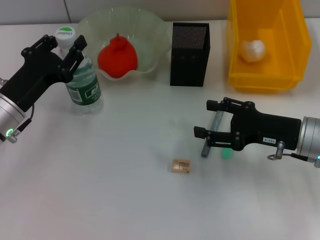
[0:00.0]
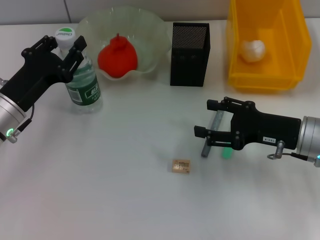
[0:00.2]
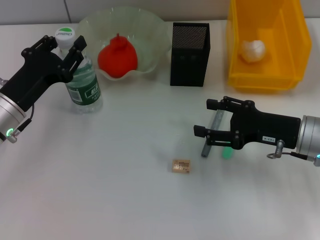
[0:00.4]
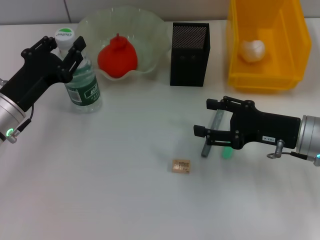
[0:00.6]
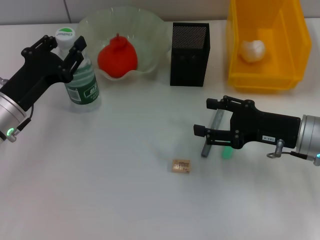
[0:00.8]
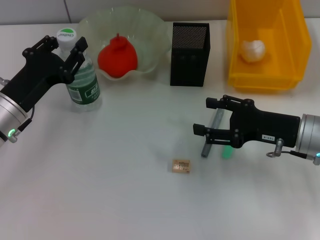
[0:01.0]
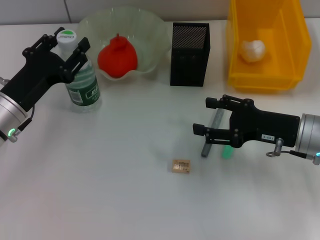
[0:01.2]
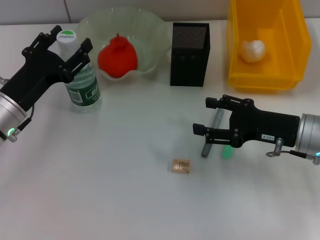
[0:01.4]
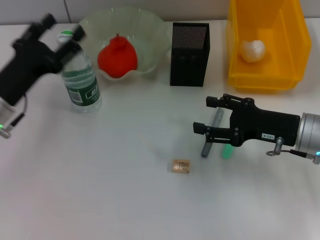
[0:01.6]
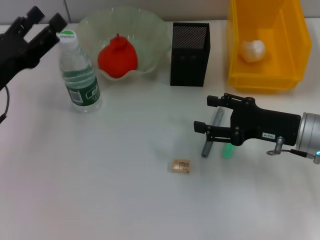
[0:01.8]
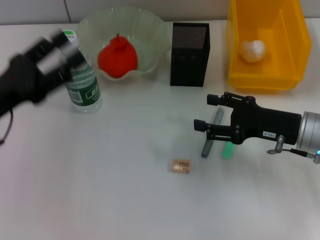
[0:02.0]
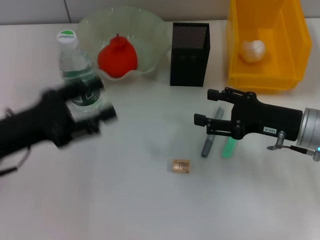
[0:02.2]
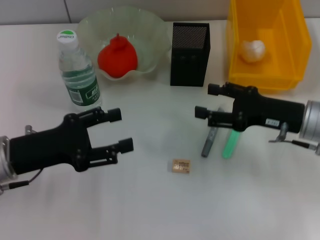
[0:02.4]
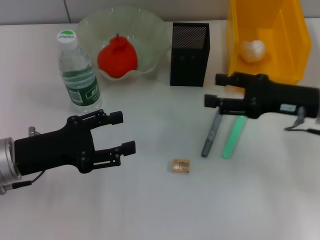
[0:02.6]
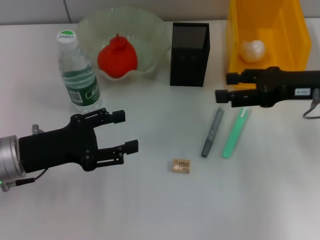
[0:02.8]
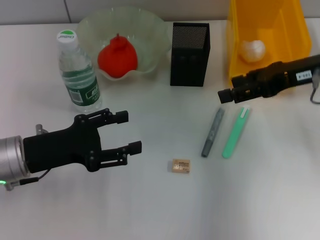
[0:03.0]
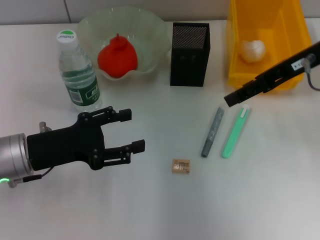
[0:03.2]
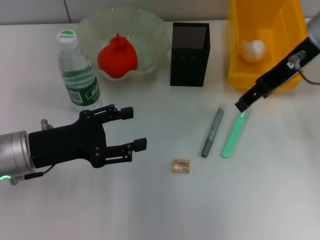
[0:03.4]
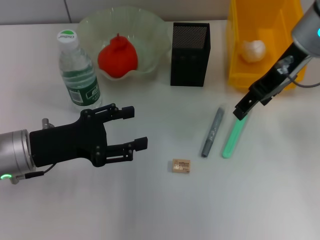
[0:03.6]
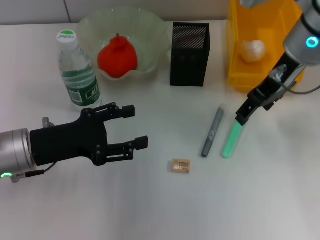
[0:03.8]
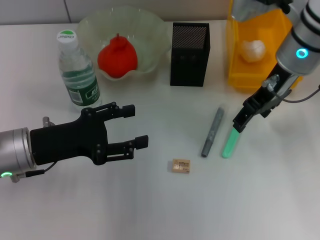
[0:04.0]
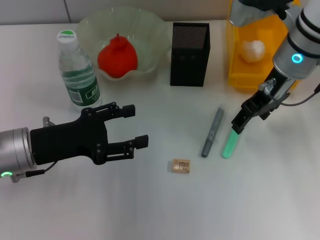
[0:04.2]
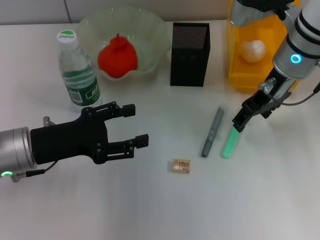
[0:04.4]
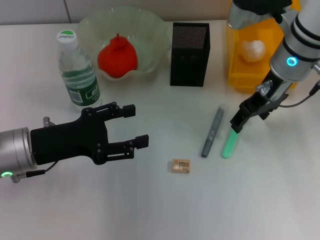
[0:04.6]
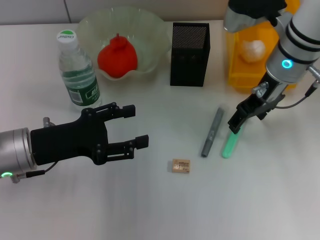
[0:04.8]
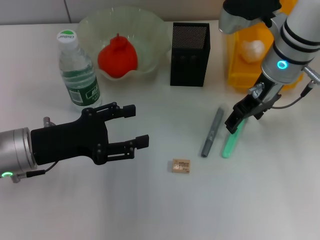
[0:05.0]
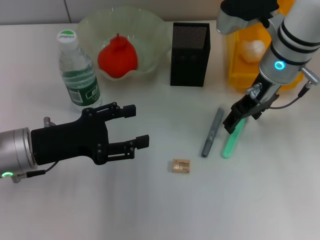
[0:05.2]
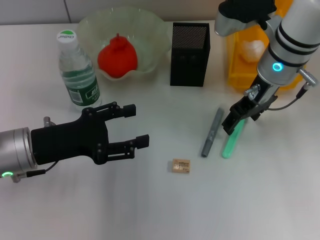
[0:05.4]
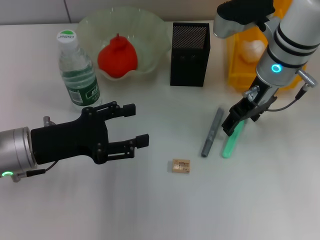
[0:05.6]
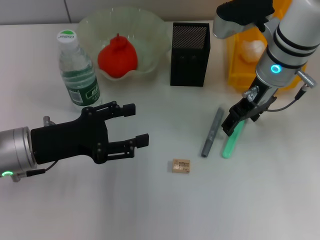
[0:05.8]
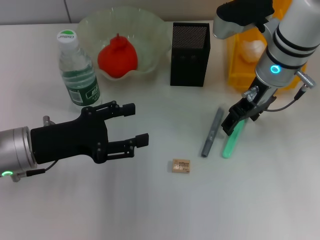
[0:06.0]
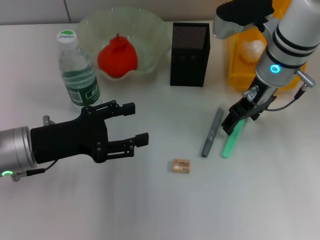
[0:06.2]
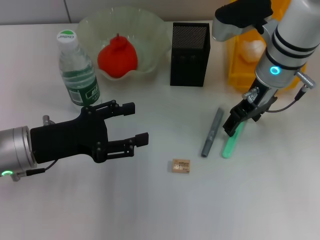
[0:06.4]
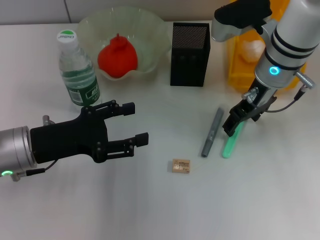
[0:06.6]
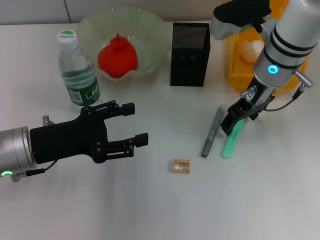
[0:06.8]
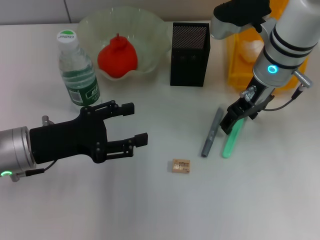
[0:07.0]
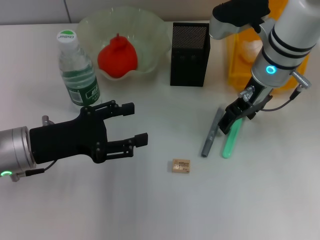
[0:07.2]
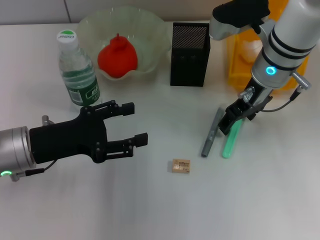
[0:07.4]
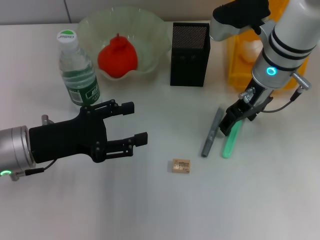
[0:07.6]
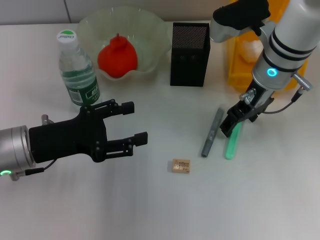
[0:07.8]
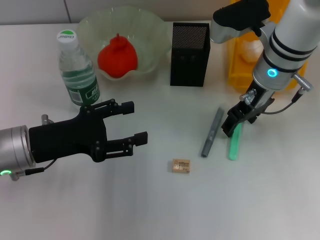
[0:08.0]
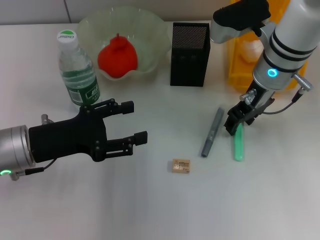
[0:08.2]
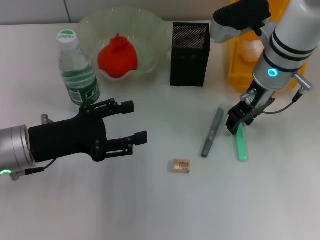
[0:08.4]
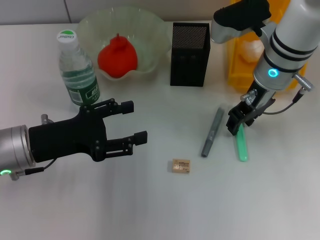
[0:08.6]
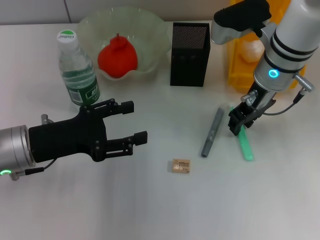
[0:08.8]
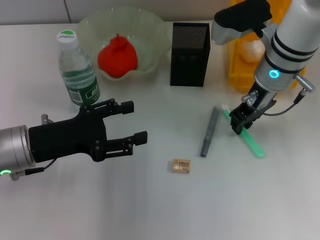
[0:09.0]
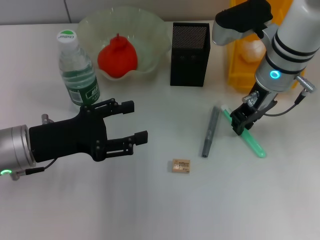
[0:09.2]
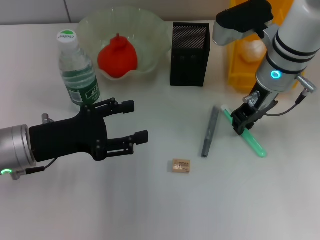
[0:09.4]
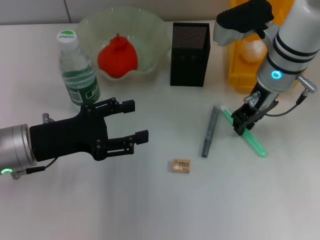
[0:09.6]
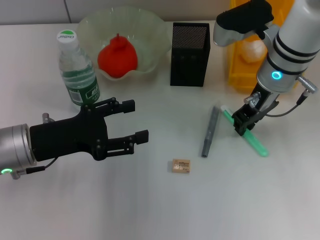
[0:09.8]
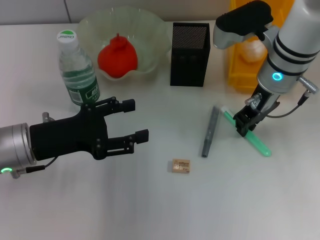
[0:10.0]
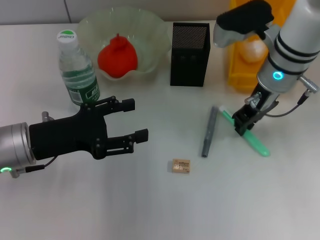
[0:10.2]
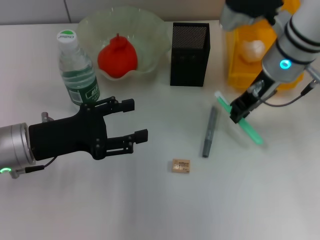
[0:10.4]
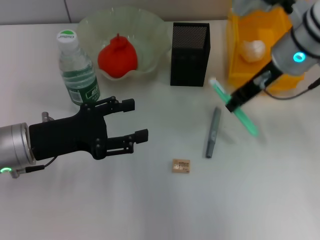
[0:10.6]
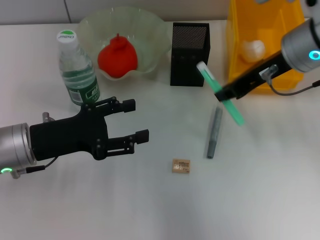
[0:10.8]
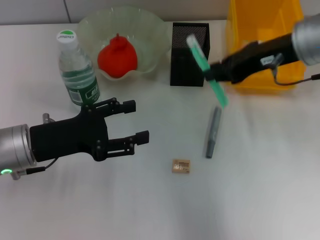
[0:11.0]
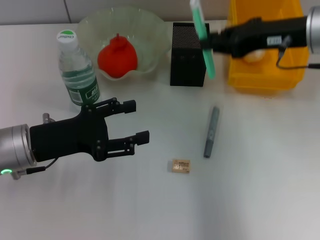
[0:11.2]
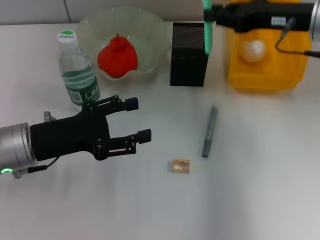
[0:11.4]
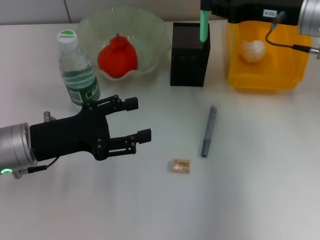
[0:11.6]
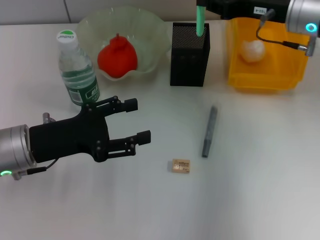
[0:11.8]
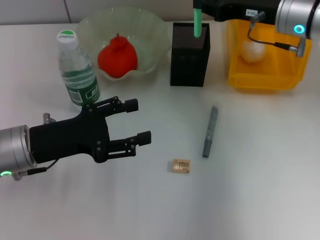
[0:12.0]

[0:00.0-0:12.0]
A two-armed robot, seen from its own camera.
Step, 0:01.4 to 0:10.0: Grab the blue utility knife with the right hand.
0:00.0 to 0:01.6: The left gripper opens up.
0:01.6 to 0:03.0: The right gripper goes about 15 cm upward.
0:03.0 to 0:04.4: The right gripper goes some 10 cm to the left and forward.
0:04.4 to 0:06.0: There are only small adjustments of the grippers.
0:06.0 to 0:07.6: Neither gripper changes place.
0:07.6 to 0:09.0: The right gripper closes its fingers.
0:09.0 to 0:10.4: The grippers move only a little.

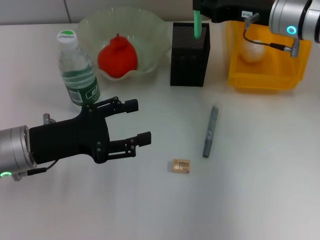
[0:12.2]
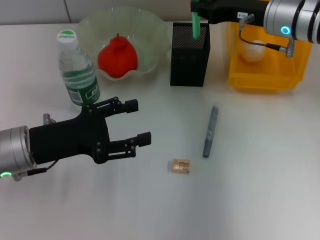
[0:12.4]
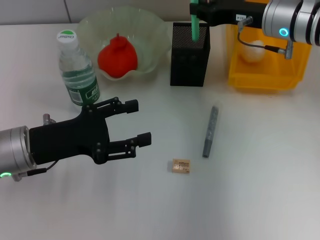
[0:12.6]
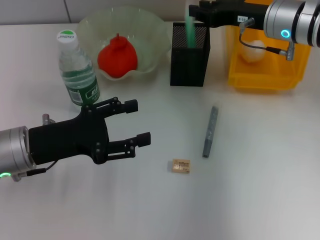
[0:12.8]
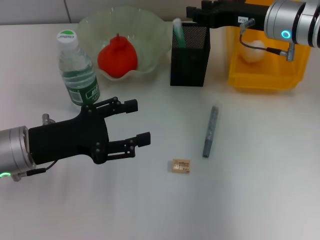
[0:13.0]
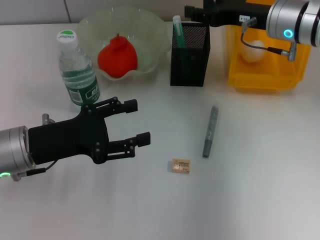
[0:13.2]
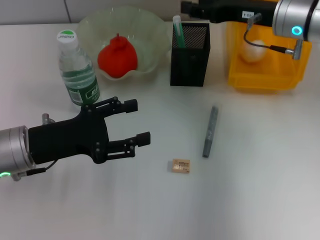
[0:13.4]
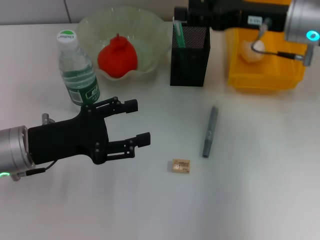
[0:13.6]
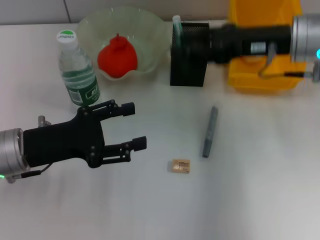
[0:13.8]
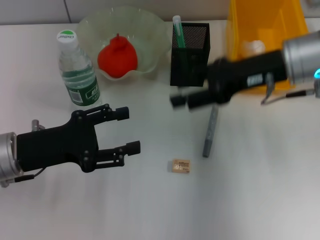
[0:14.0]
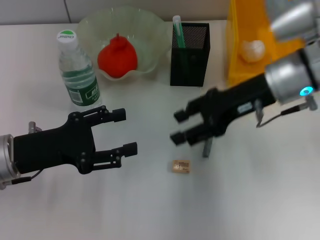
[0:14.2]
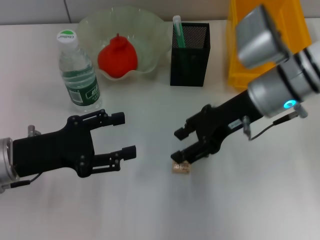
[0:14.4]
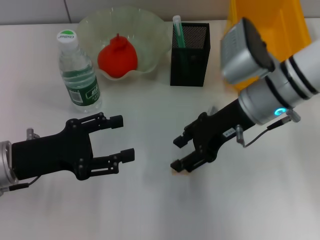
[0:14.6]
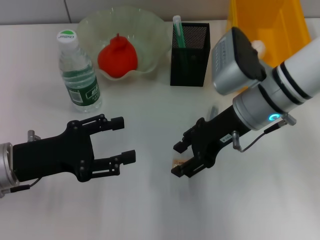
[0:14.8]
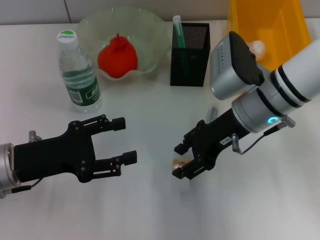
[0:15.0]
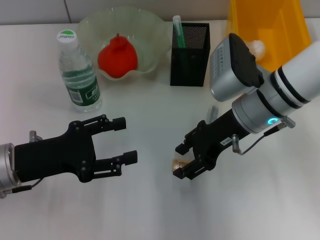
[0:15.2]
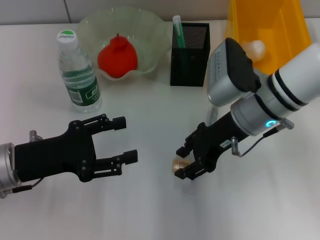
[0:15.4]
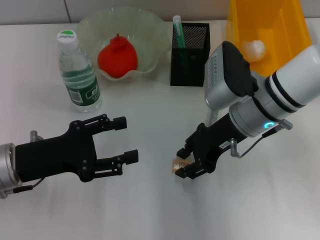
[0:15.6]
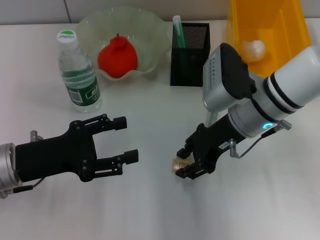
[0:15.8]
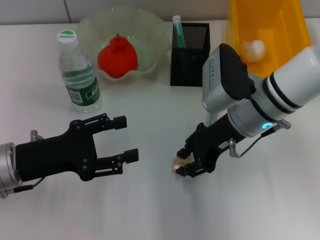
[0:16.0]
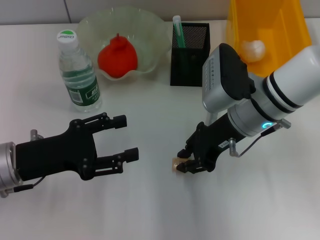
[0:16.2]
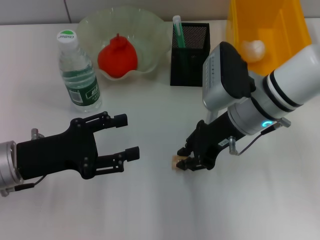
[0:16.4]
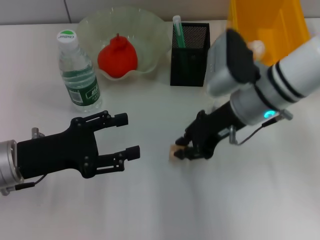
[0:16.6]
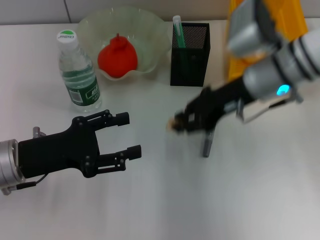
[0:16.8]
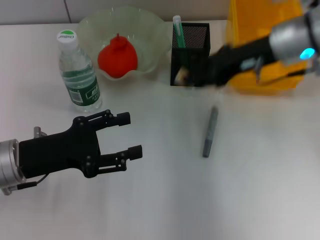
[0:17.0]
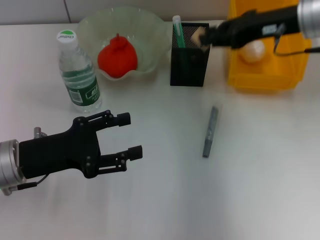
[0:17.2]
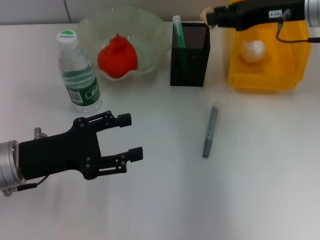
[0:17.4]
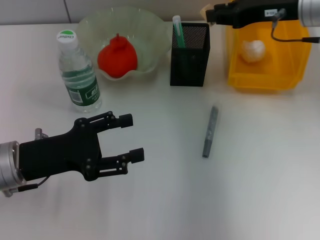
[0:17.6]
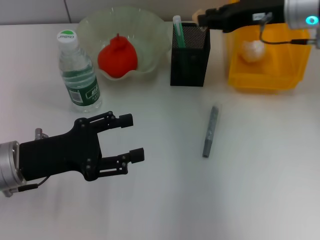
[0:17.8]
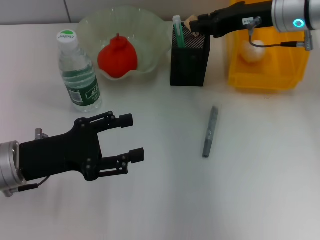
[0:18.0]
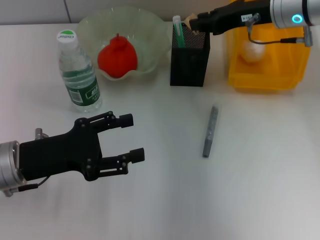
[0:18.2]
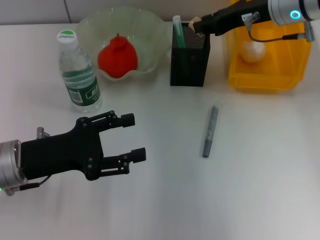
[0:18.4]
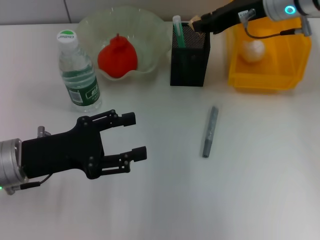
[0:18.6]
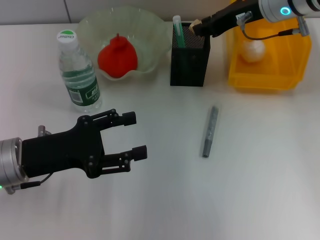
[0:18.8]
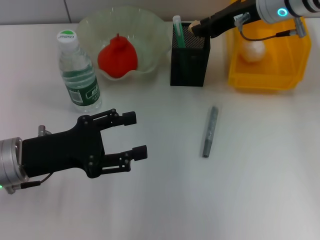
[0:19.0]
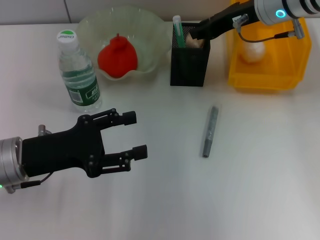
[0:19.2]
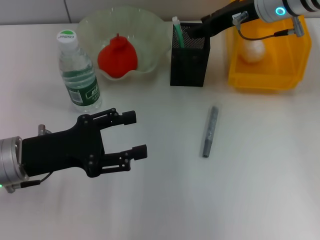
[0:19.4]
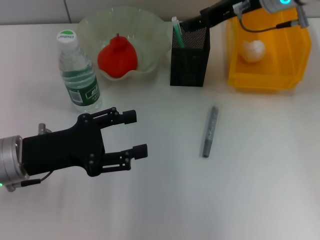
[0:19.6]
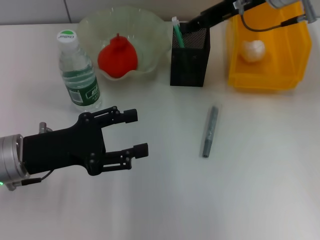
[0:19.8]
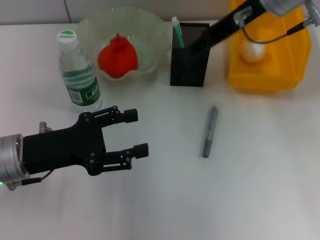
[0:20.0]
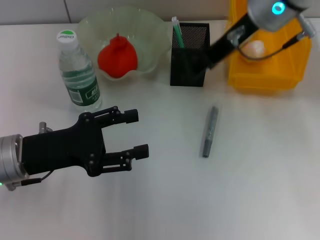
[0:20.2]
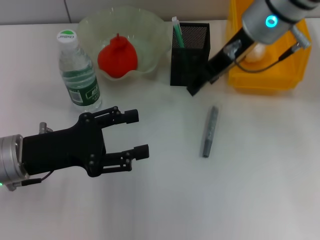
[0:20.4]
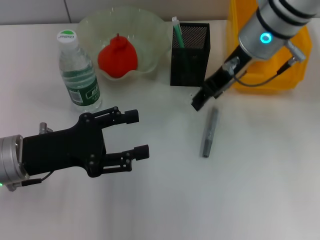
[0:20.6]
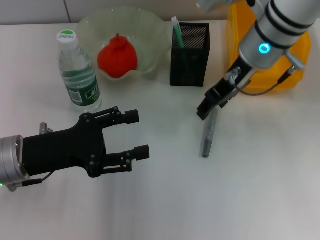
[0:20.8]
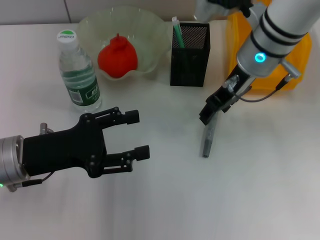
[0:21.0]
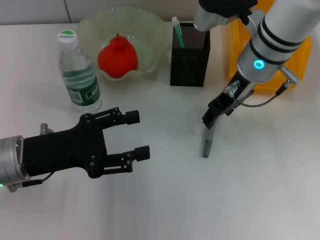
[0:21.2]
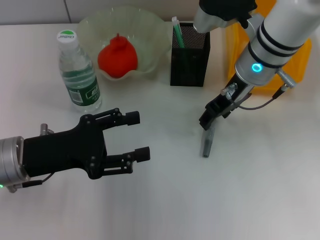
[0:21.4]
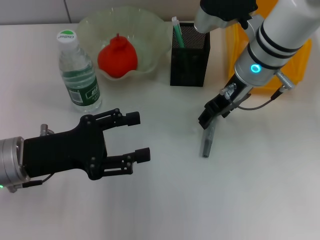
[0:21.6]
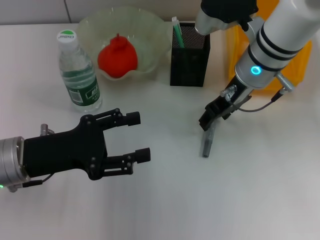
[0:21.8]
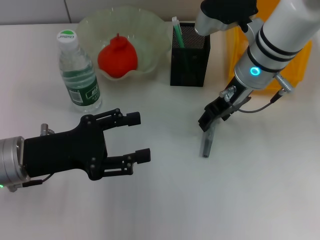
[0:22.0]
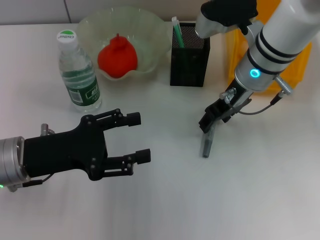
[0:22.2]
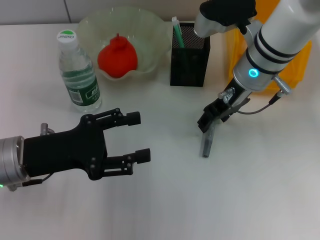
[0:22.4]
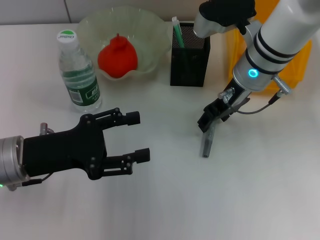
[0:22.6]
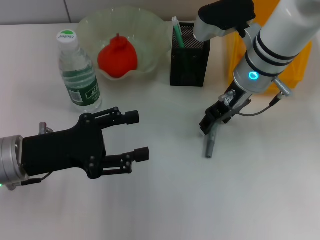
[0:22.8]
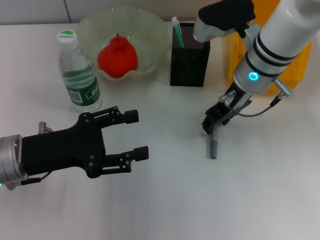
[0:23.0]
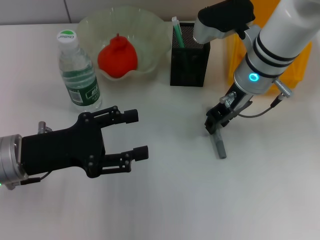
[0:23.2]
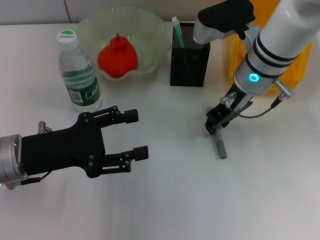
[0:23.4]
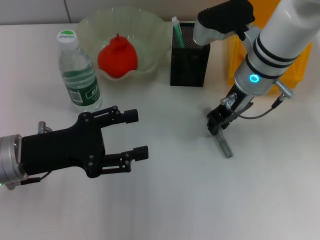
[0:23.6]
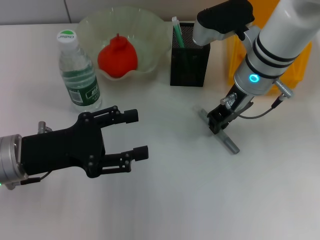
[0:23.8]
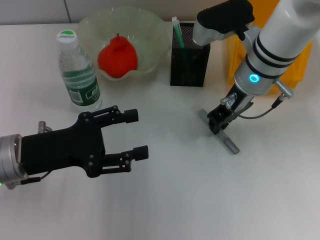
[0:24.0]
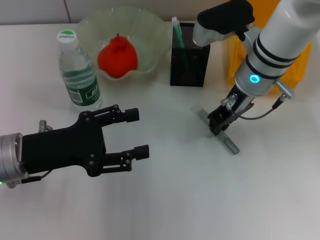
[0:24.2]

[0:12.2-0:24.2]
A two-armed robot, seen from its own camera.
Step, 0:13.2 to 0:16.2: Grab the eraser with the right hand.
Step, 0:16.4 to 0:19.2: Put the eraser into the pen holder with the right hand.
0:12.2 to 0:13.8: The right gripper is displaced backward by roughly 5 cm, and opens.
0:13.8 to 0:15.2: The right gripper travels to the left and downward by approximately 10 cm.
0:15.2 to 0:16.6: The right gripper closes up.
0:16.6 to 0:18.2: The right gripper travels forward, upward and to the right by approximately 10 cm.
0:18.2 to 0:19.8: The right gripper travels upward by approximately 5 cm, and opens up.
0:19.8 to 0:21.2: The right gripper shifts approximately 10 cm downward.
0:21.2 to 0:22.6: The grippers stay close to where they were, moving slightly.
0:22.6 to 0:24.2: The right gripper closes up.
